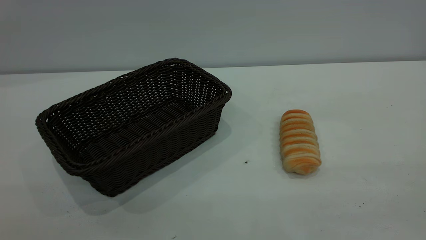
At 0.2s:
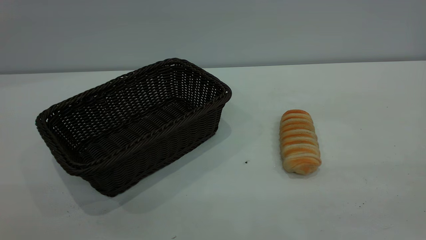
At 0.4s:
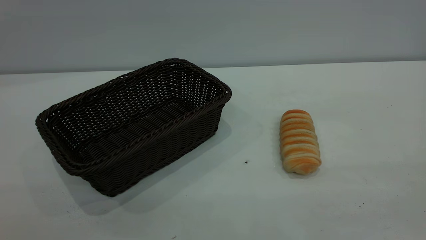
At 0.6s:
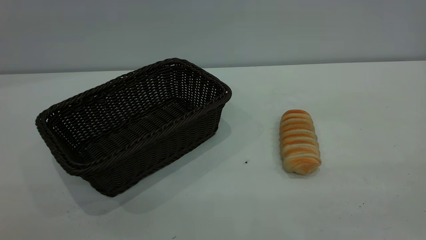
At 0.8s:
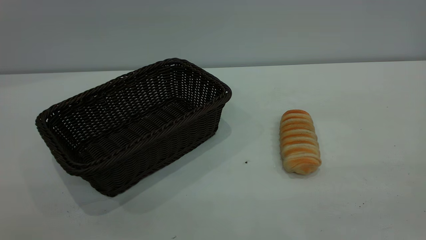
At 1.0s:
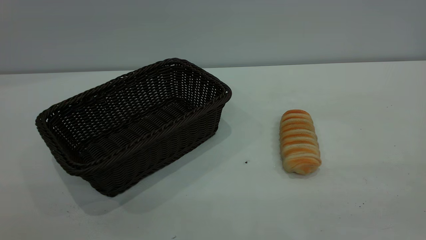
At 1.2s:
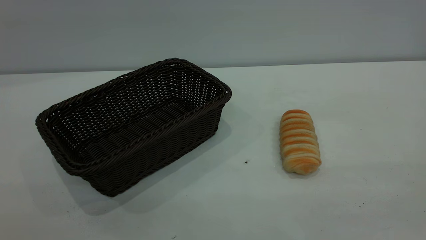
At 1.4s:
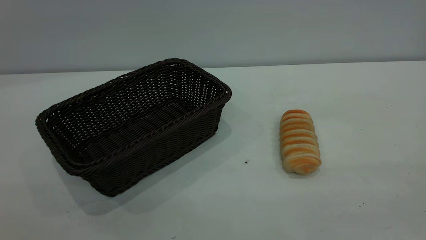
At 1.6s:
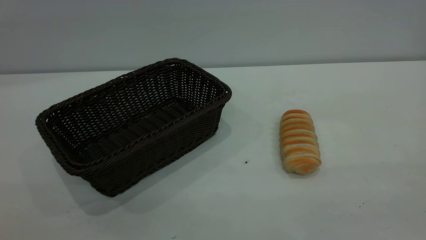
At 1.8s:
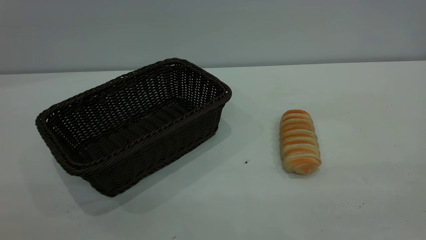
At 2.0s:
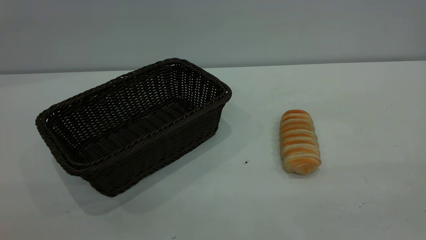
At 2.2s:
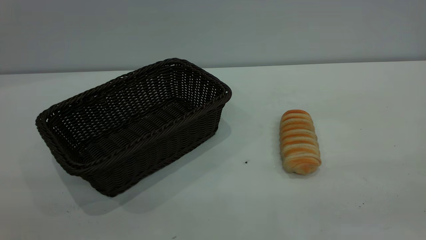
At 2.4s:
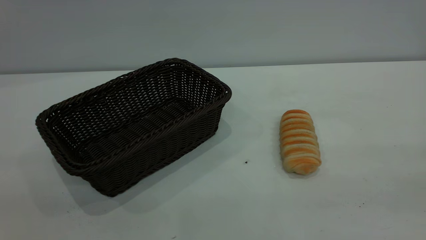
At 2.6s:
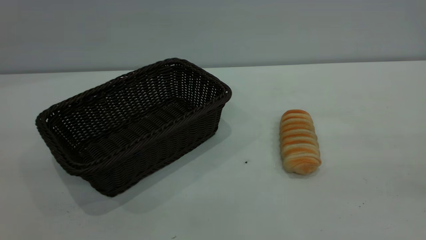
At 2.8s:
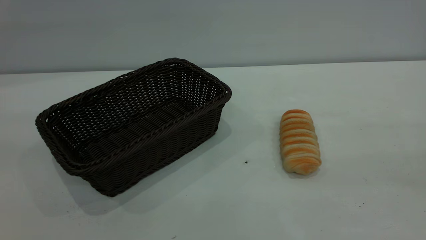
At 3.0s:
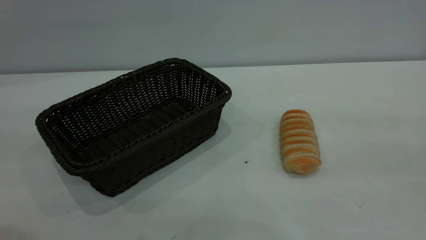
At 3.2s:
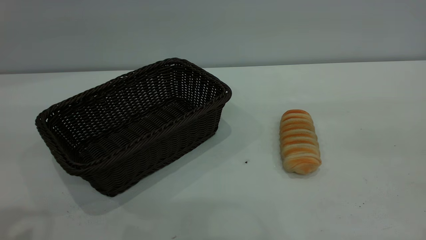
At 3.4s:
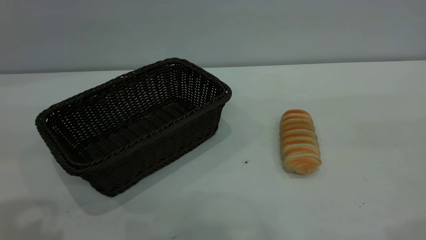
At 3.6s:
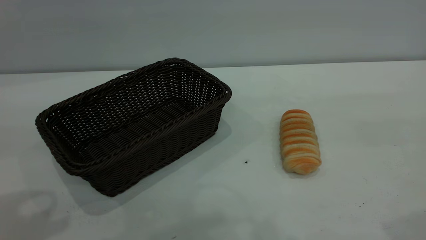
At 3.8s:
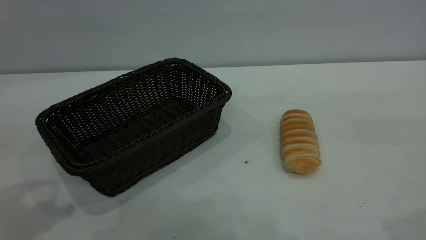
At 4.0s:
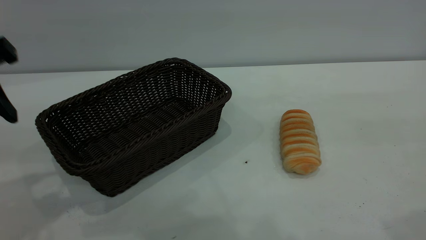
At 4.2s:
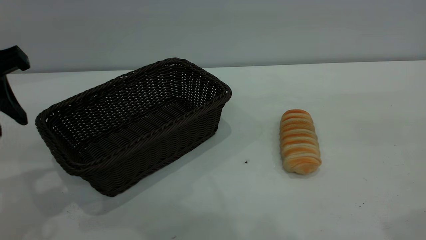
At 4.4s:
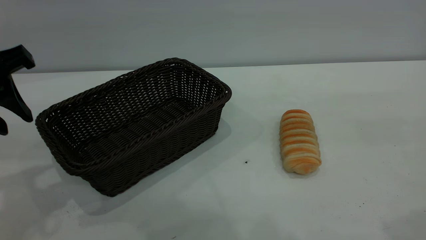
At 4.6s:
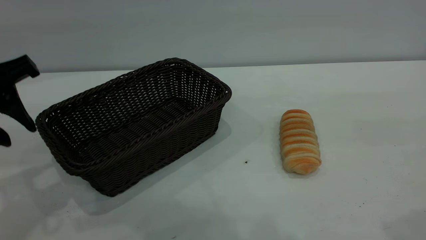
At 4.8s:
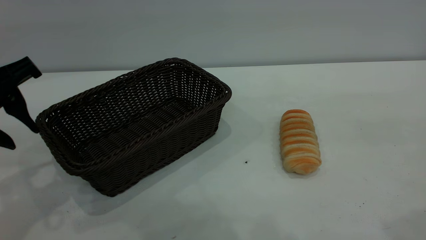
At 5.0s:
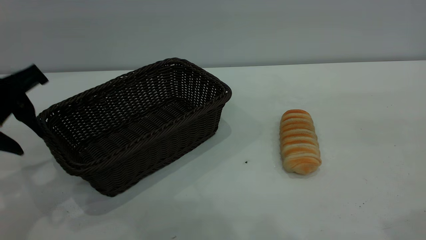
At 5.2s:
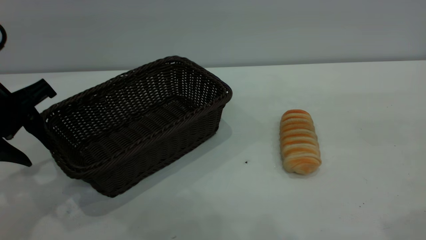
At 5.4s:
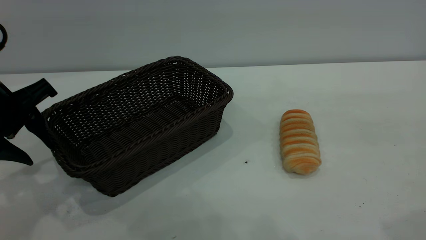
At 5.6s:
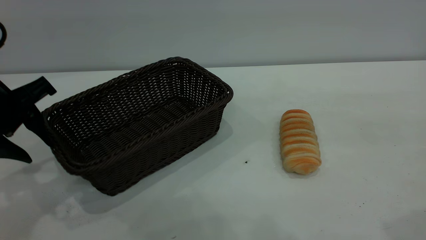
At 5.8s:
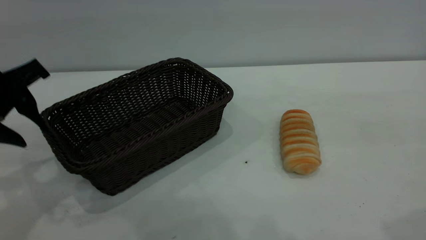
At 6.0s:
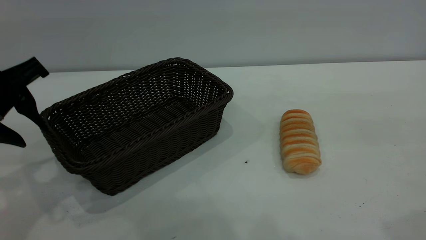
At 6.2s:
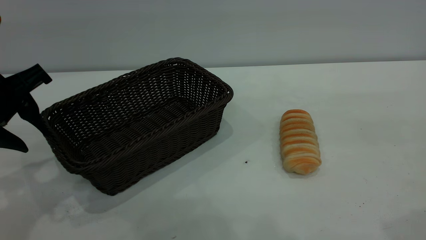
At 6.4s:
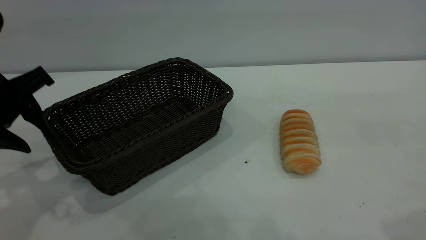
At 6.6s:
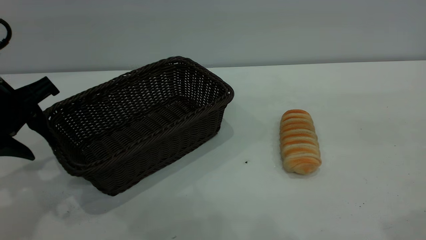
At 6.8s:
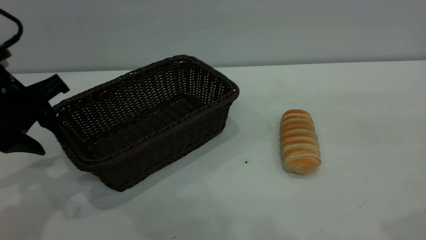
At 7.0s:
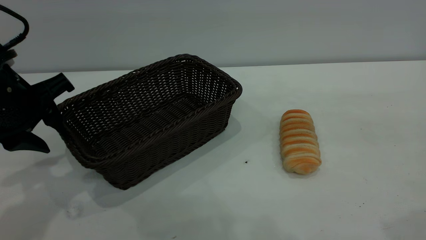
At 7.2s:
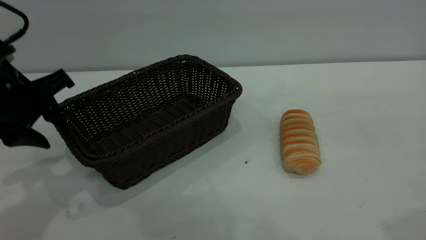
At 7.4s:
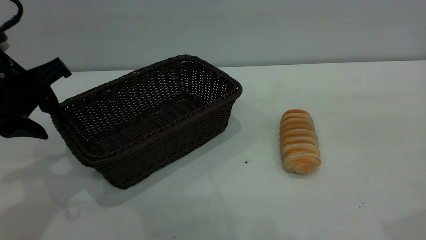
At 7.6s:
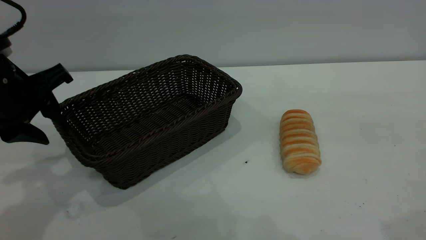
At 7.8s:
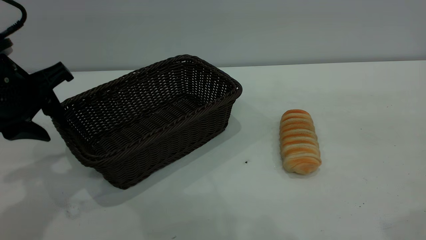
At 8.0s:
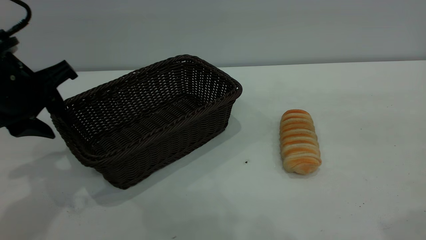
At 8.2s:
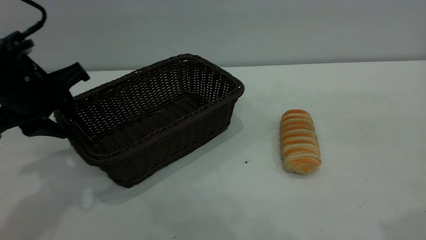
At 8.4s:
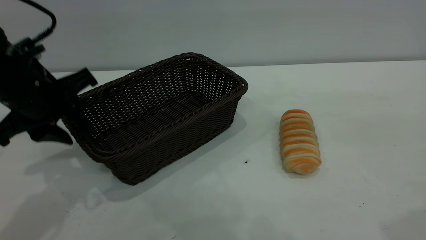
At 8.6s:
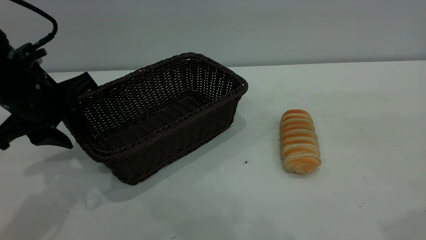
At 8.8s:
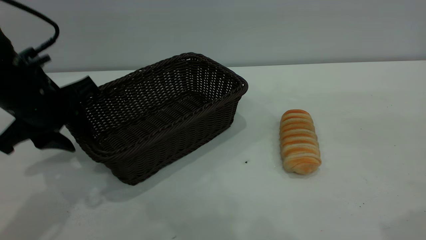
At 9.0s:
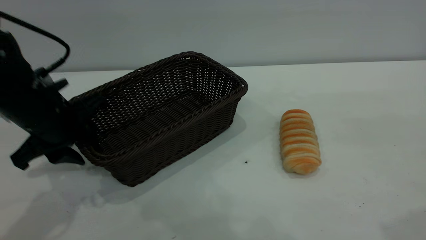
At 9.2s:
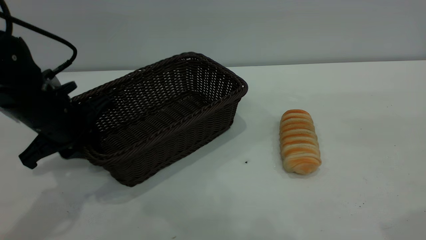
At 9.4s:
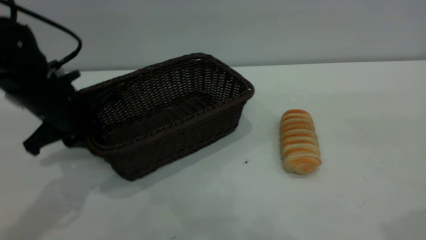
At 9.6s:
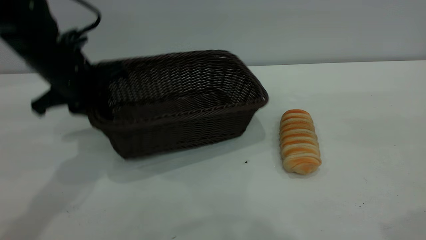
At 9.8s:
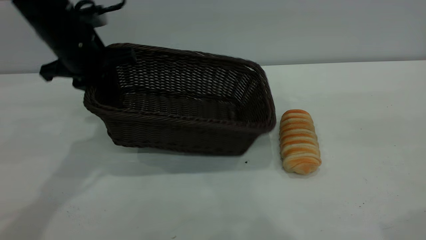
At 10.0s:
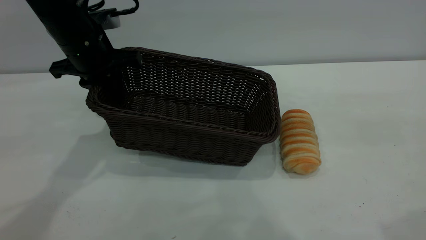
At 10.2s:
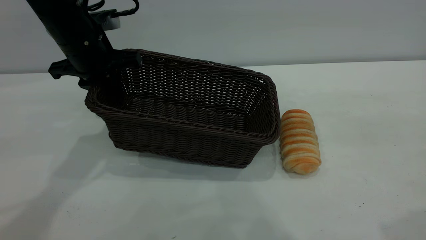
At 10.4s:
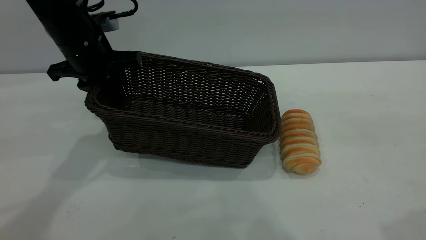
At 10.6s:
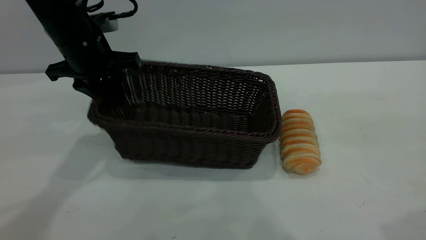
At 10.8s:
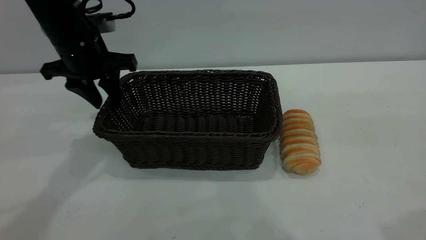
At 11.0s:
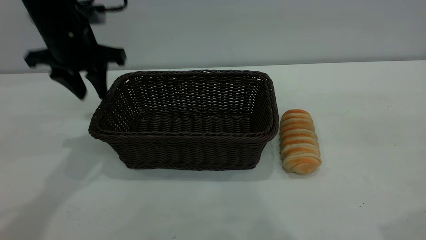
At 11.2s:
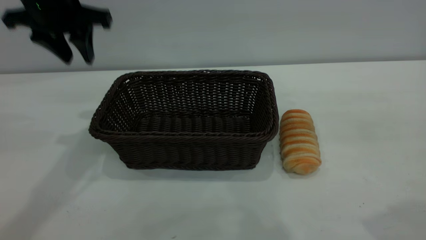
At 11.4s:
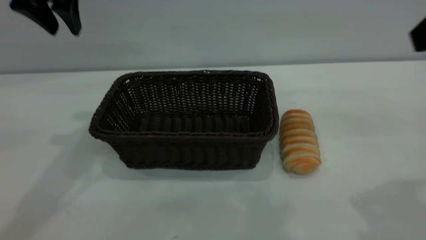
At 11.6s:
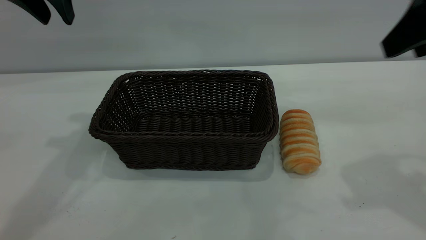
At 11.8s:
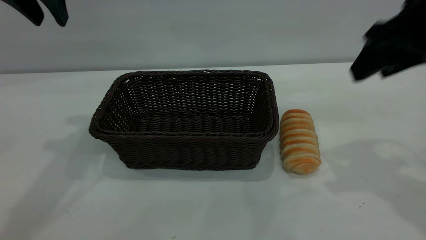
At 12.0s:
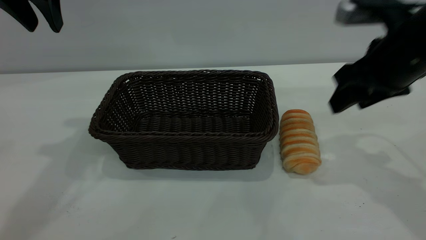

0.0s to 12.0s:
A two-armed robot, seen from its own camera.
Task of the whole recording: One hand grasps the black basket and places it in the middle of the table, while the other hand picks up the long bread and puts it into the black basket.
Step, 0.0s to 11.0s: Move the basket to the center of view.
3.0s to 4.4s: The left gripper travels downward and forward by about 15 cm.
4.4s to 6.0s: The grippers stay close to where they were, moving slightly.
6.0s to 7.6s: The grippers make only small movements.
7.6s to 9.0s: The left gripper goes about 5 cm downward.
9.0s to 10.4s: The left gripper is displaced forward and upward by some 10 cm, and closes its fingers.
10.4s to 12.0s: The left gripper is displaced upward by about 15 cm, and opens up. Meanwhile the right gripper moves downward and forward, approximately 25 cm.

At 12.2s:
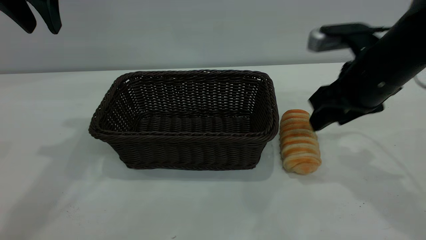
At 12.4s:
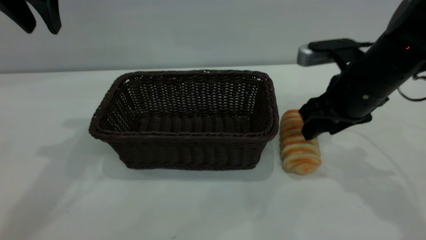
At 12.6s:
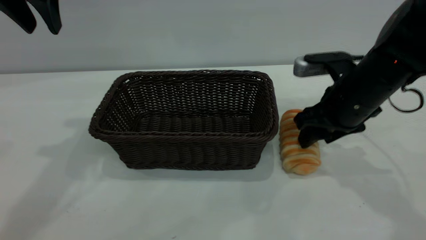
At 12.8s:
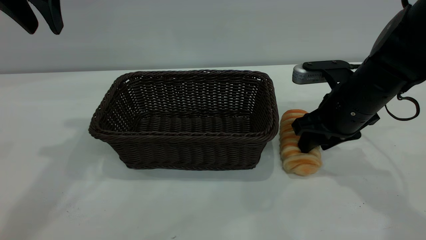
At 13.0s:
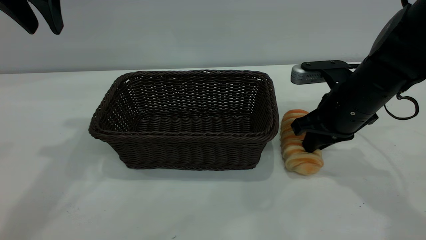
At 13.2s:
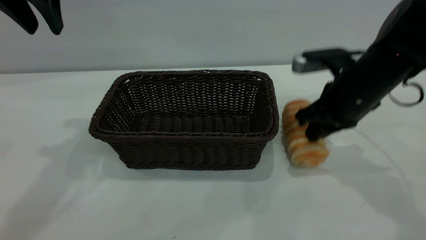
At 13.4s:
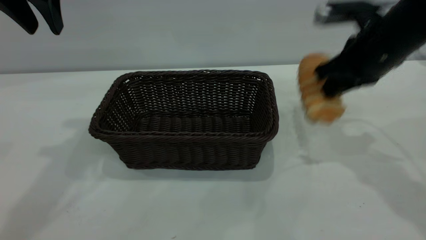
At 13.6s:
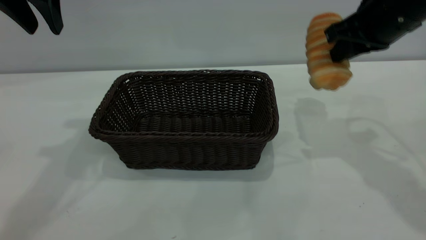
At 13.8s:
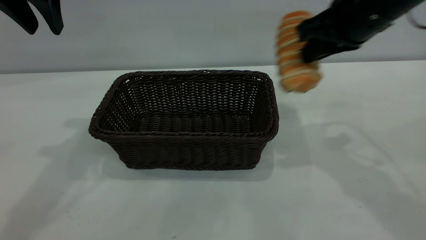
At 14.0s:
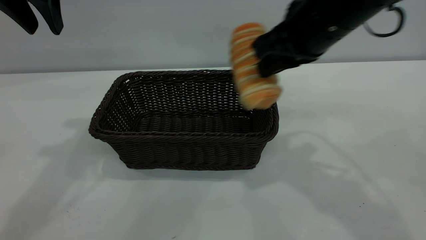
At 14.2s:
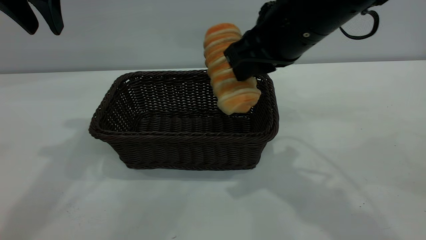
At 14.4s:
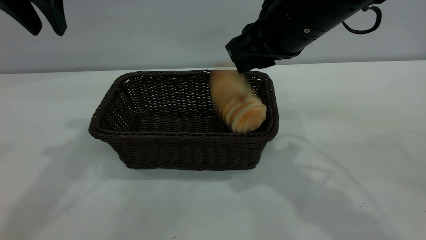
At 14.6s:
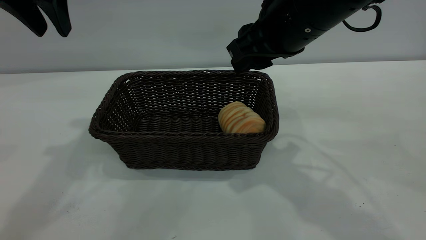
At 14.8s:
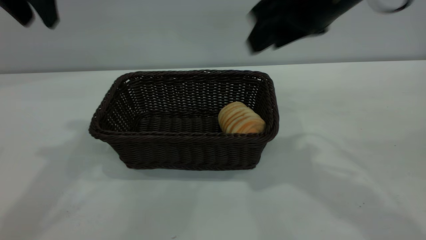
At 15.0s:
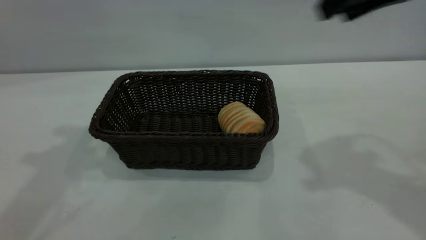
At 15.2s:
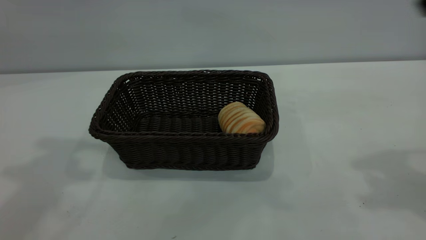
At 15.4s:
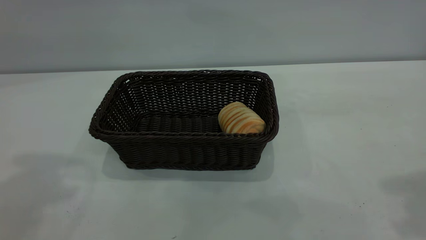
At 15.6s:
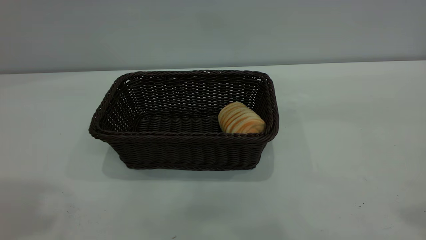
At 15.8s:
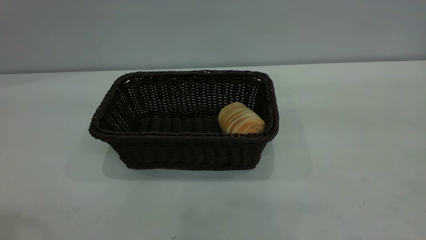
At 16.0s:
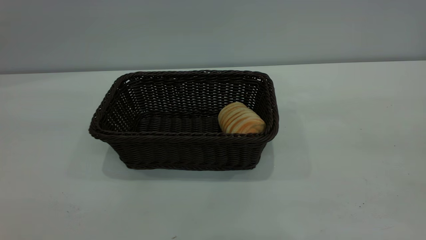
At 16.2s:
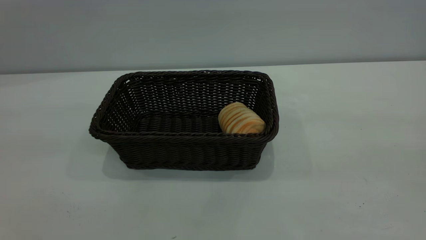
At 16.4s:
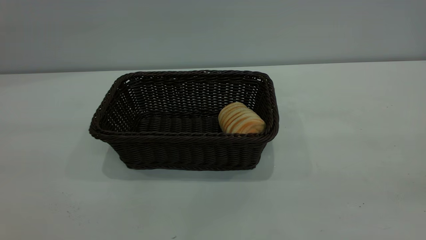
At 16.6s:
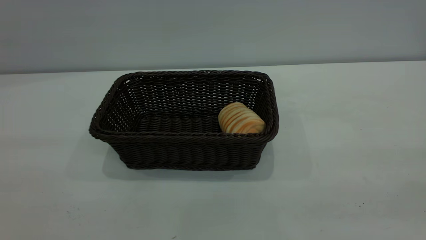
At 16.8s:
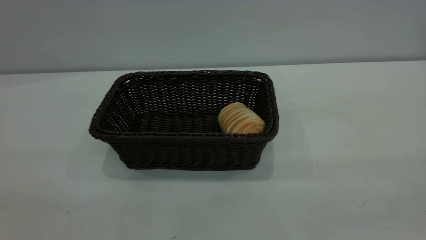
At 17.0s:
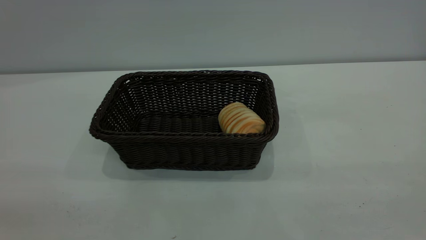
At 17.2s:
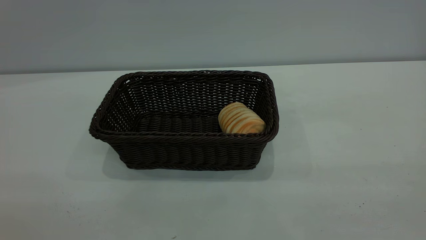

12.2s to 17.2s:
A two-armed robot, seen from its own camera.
Task of the whole recording: One hand grasps the black basket and places it in the middle of the table, while the other hand picks up the long bread and puts it into the black basket.
Step, 13.4s to 14.6s: place the bread into the basket.
12.2s to 13.8s: The right gripper is displaced upward by approximately 10 cm, and closes its fingers.
13.8s to 15.6s: The left gripper is displaced backward and upward by about 25 cm. The right gripper heads upward, backward and to the right, covering roughly 30 cm, and opens up.
